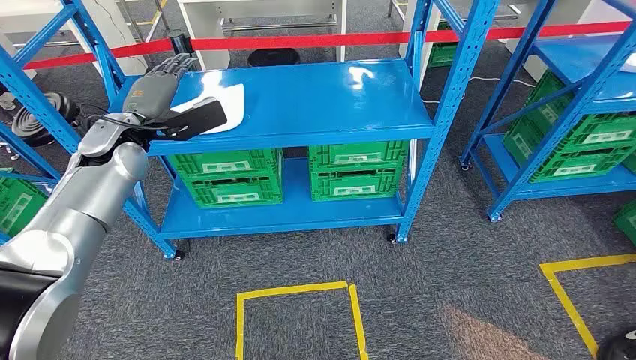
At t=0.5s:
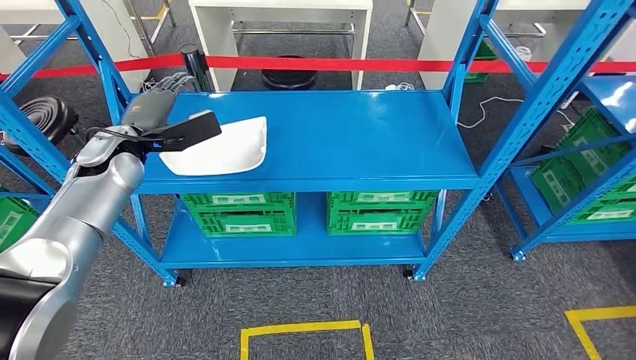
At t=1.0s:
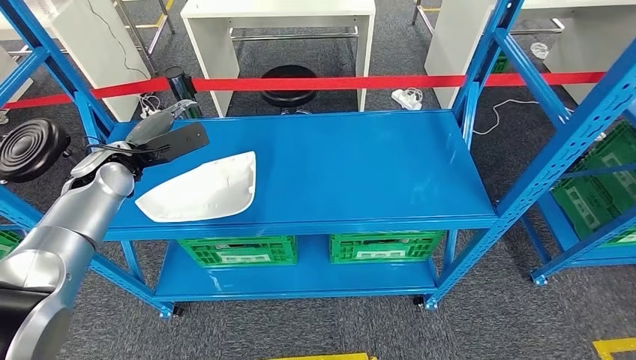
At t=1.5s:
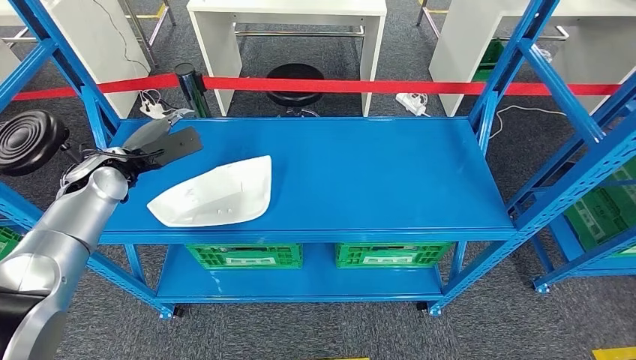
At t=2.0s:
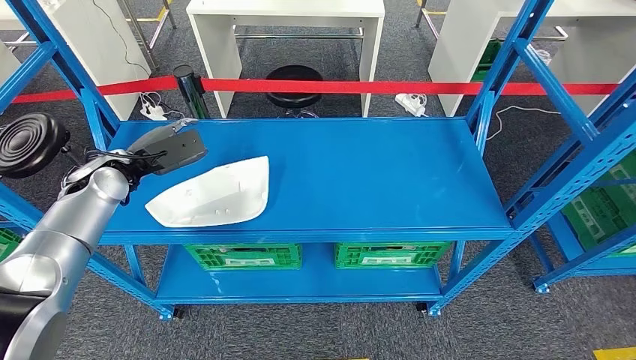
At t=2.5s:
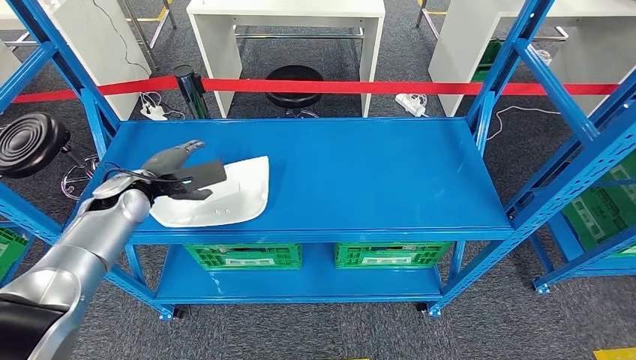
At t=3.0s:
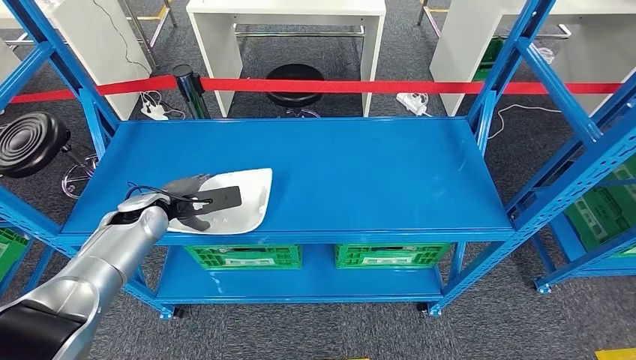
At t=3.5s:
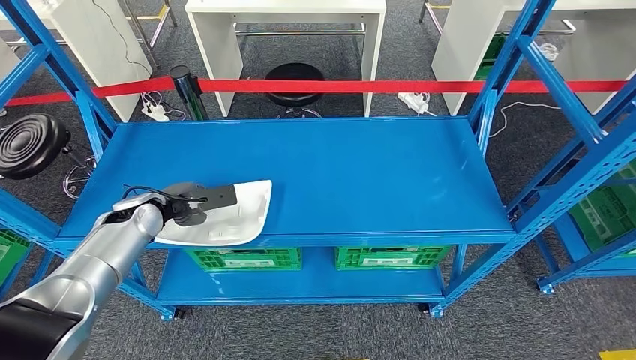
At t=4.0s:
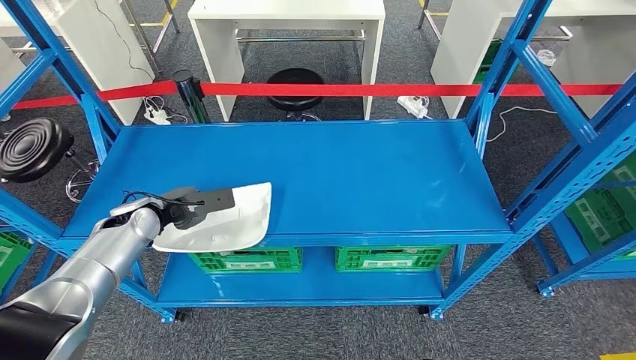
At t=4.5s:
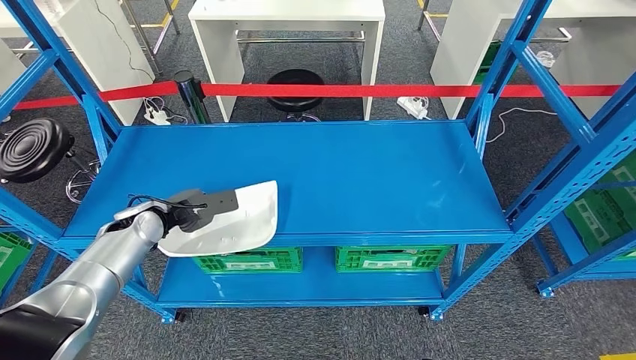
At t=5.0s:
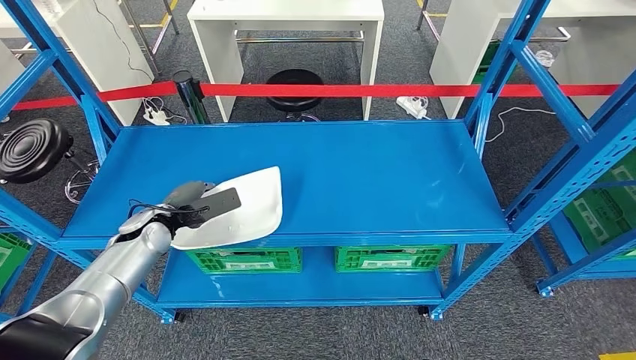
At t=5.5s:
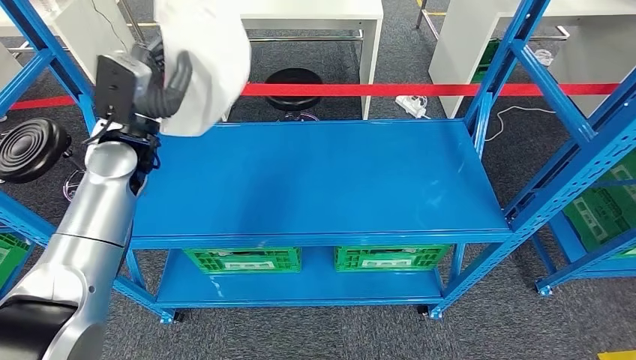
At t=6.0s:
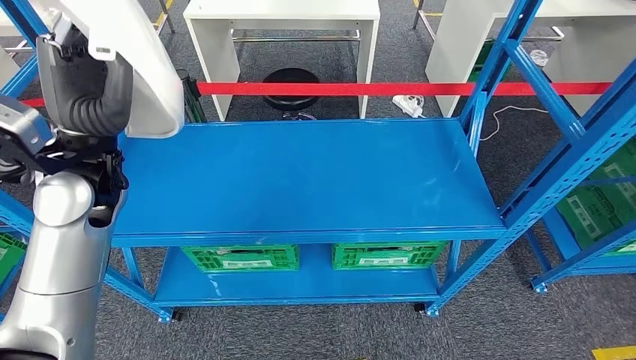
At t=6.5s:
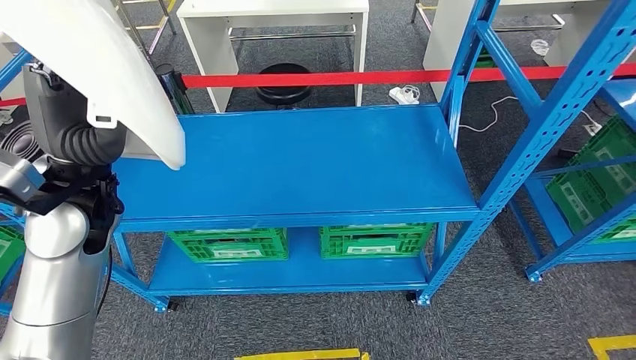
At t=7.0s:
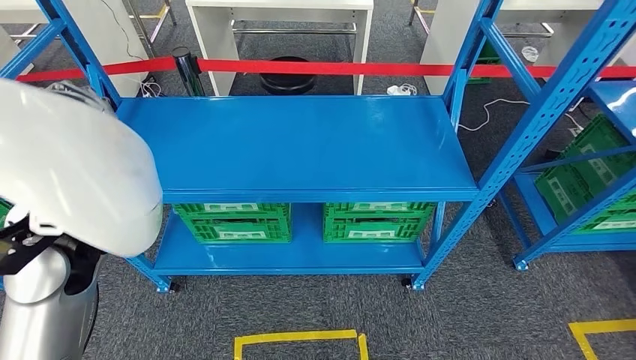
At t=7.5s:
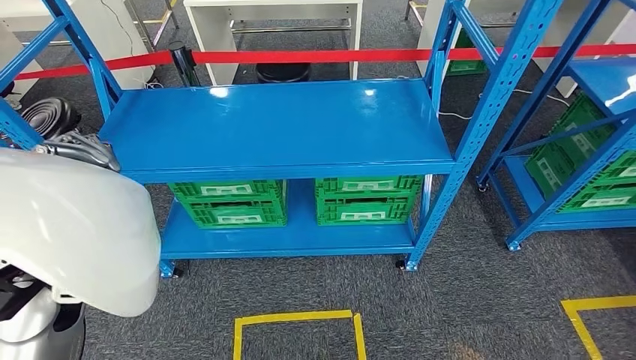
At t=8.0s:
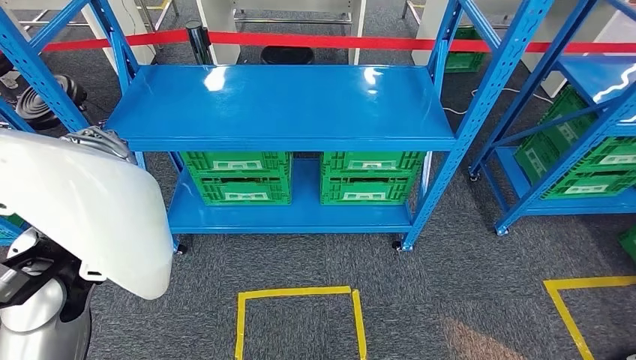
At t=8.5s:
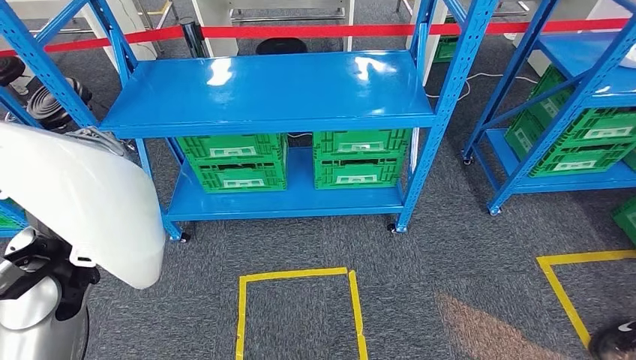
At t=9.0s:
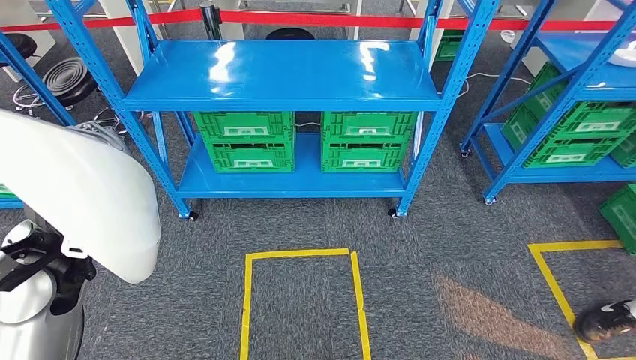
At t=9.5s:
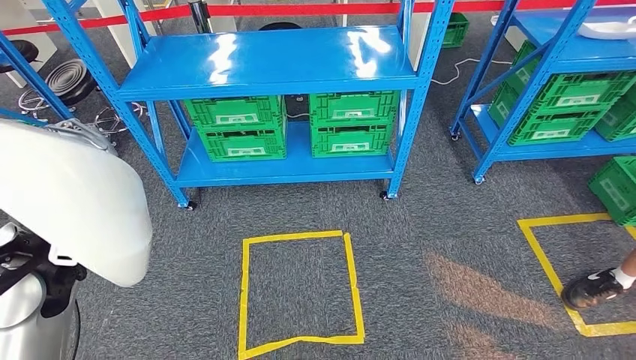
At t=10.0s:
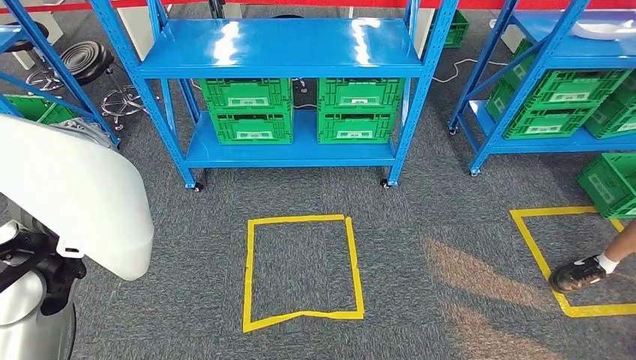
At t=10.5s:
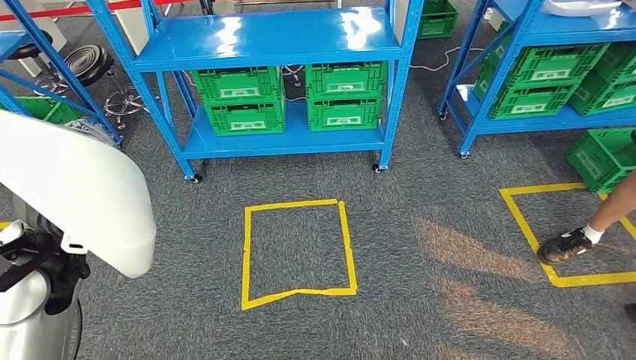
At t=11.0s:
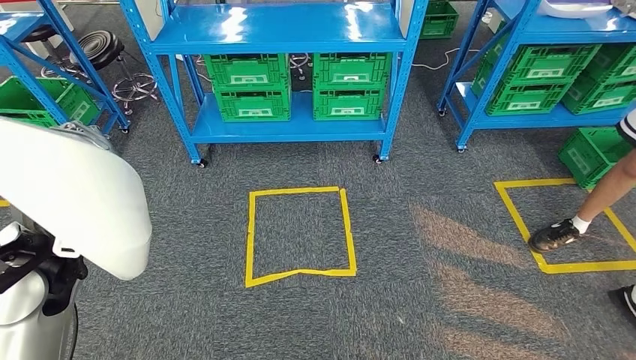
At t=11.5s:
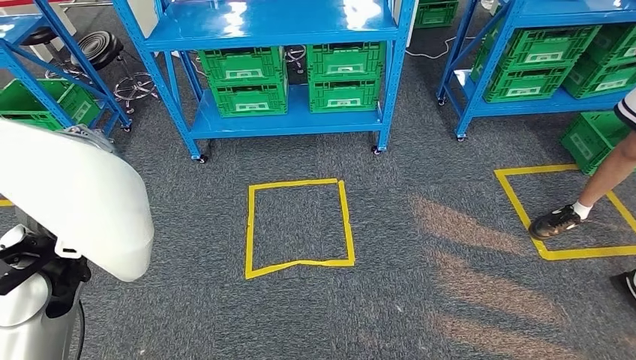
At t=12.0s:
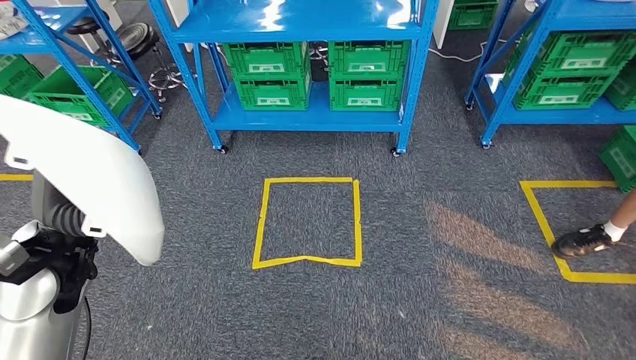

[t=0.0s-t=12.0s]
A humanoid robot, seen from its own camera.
Step, t=0.0s to t=5.0s: Pick up the small component from the shelf.

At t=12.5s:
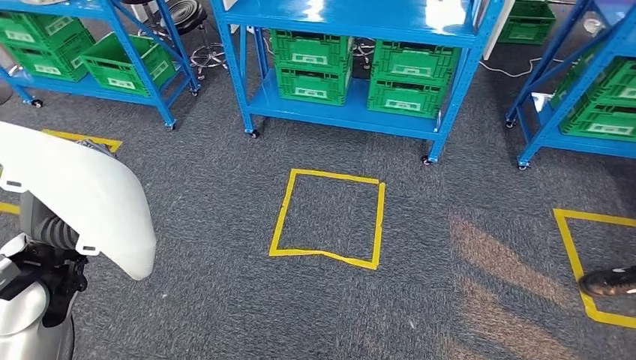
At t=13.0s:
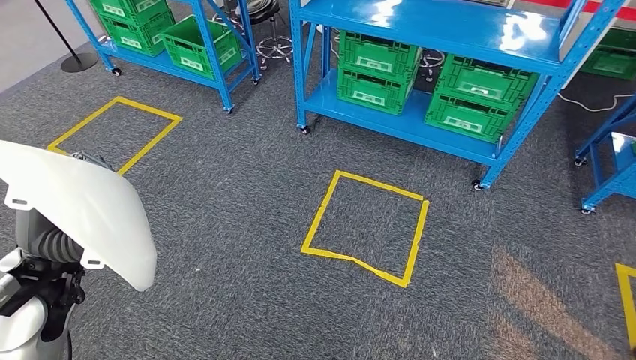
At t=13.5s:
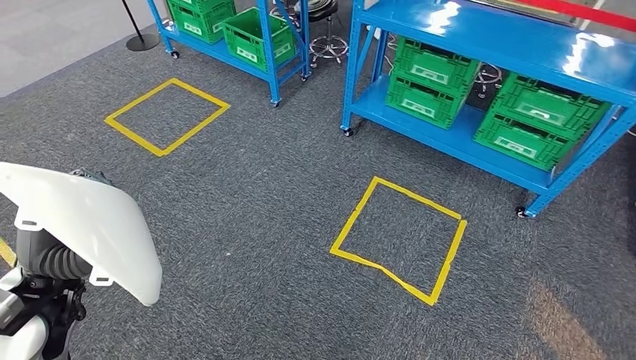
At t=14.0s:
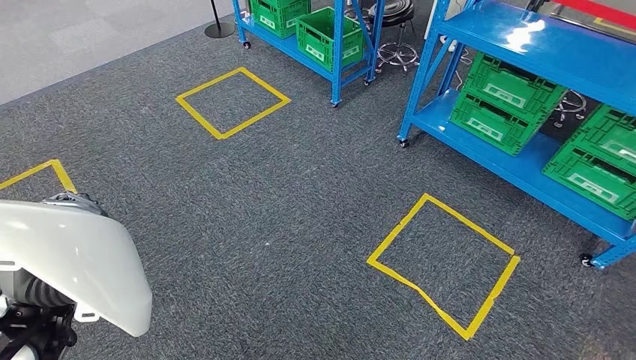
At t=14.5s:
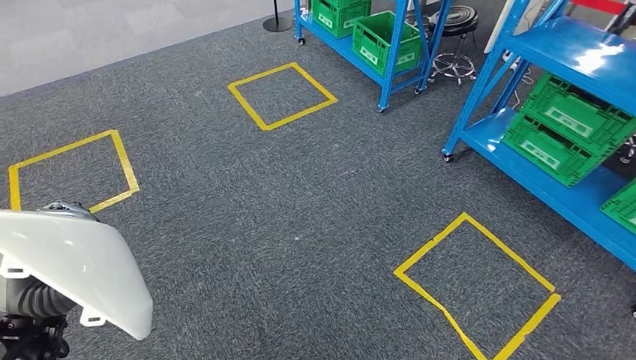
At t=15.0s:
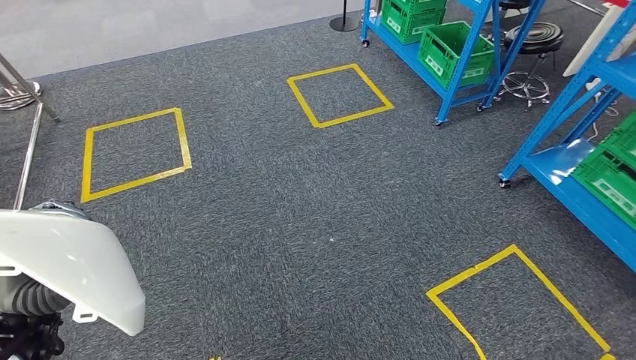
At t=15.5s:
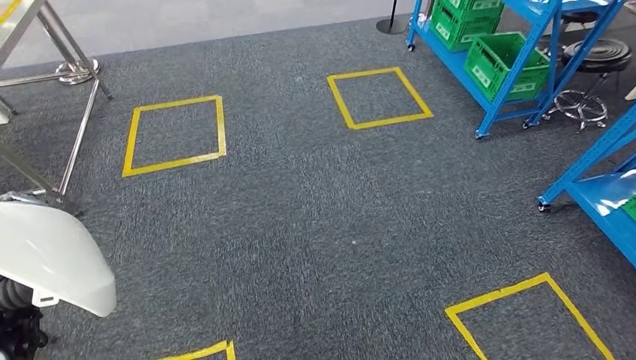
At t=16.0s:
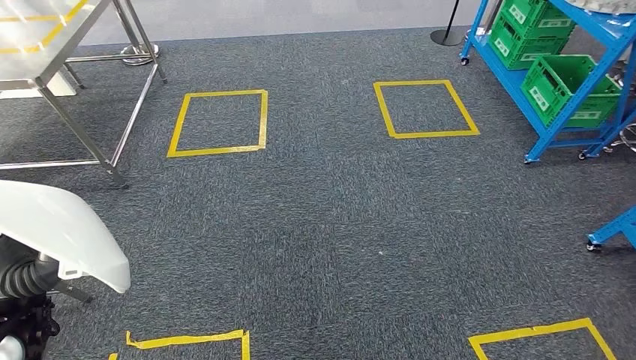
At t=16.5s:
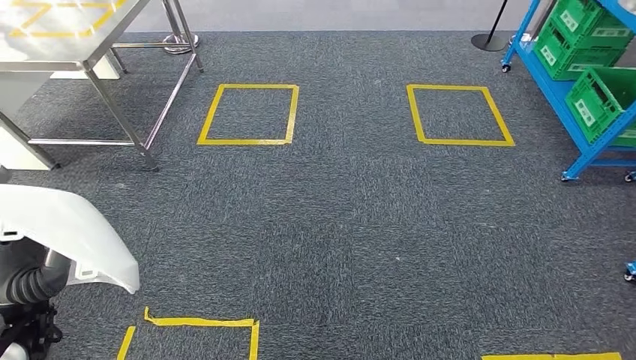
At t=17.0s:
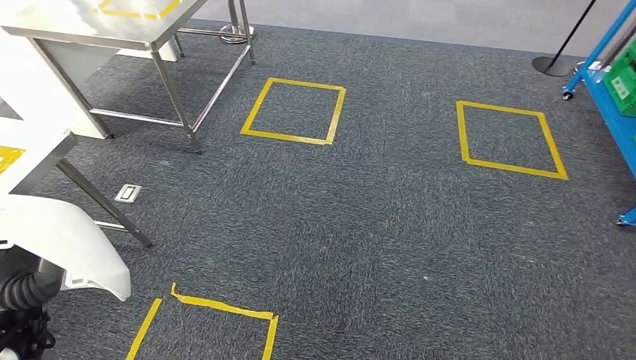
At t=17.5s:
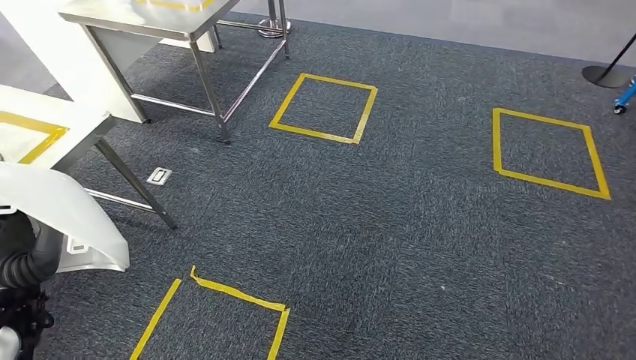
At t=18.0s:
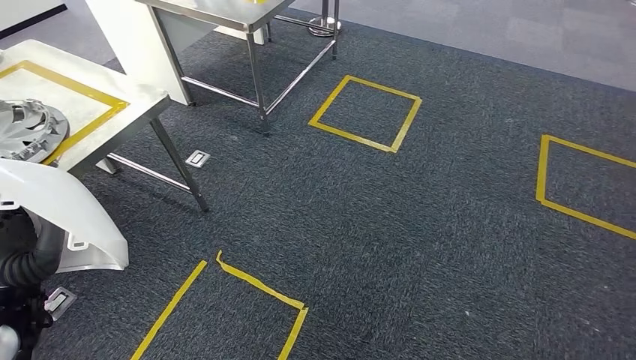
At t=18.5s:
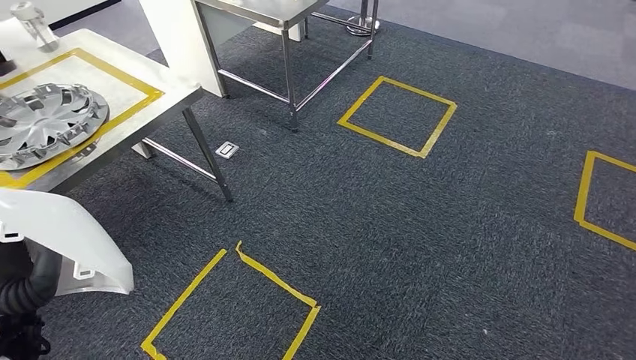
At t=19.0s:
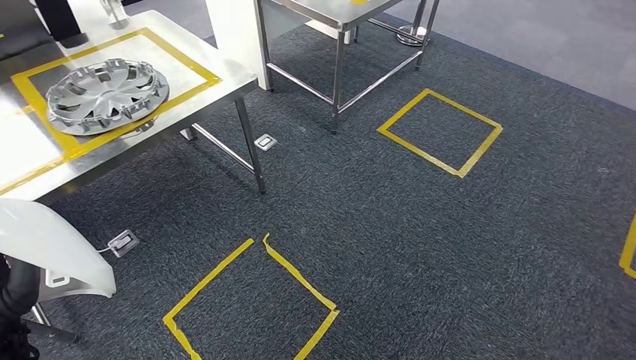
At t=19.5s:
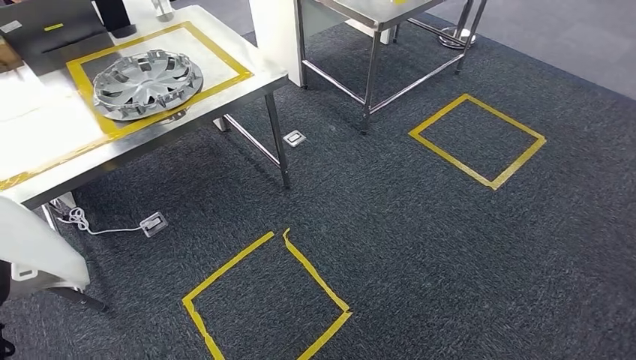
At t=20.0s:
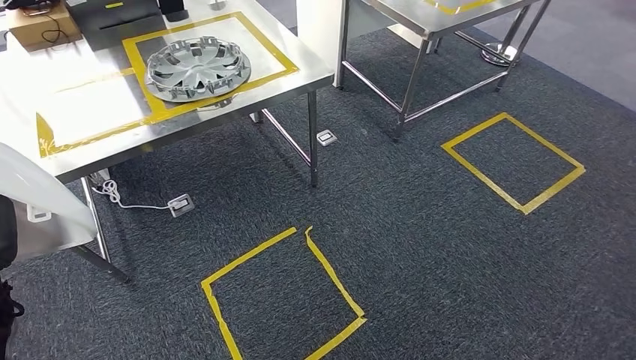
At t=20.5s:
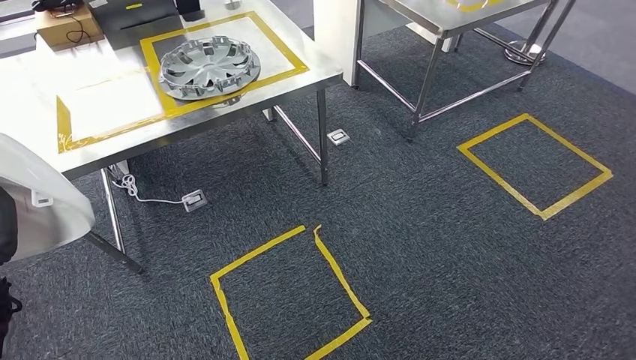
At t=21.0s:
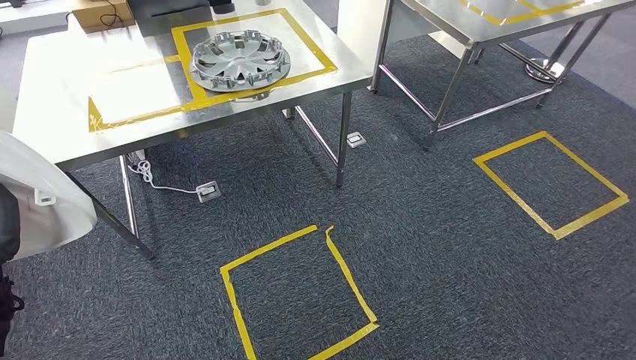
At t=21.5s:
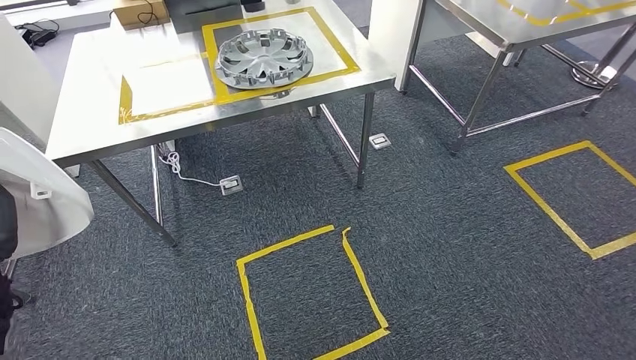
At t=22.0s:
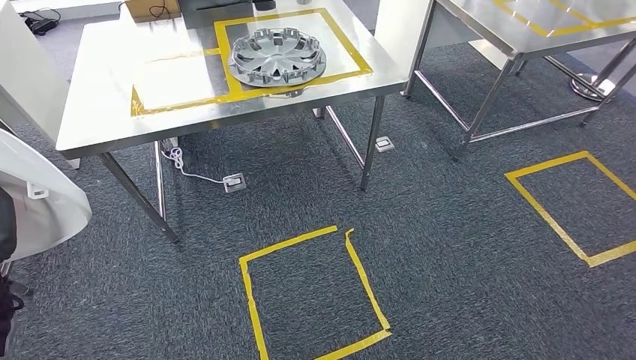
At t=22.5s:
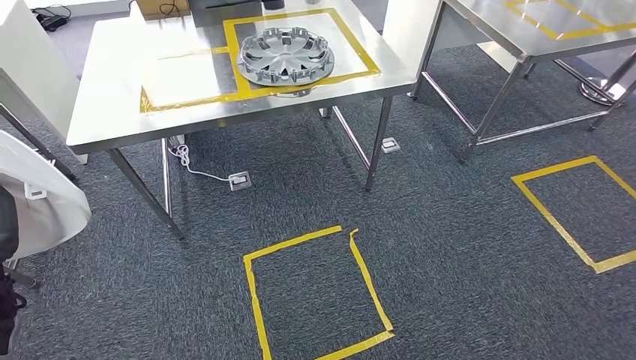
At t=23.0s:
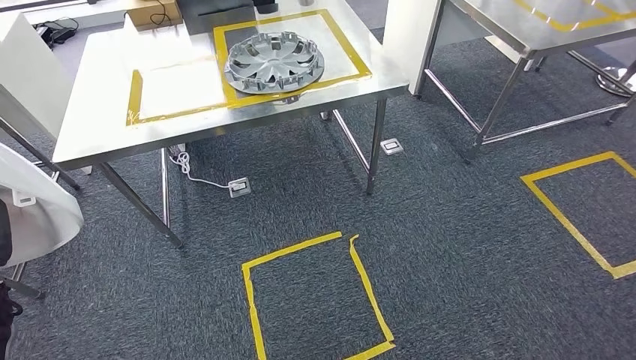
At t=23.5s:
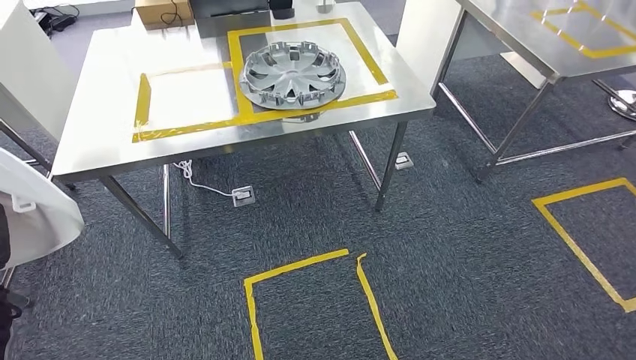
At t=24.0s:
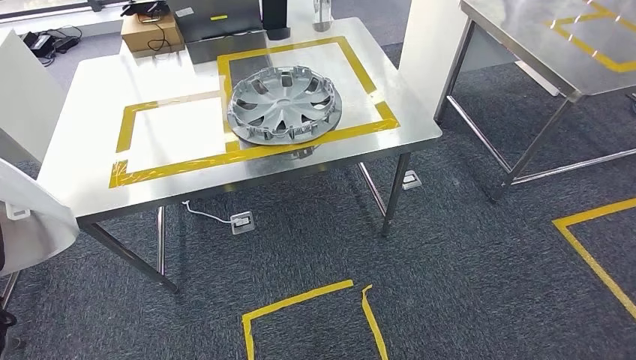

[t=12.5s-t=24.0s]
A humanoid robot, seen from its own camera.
Step, t=12.5s to t=22.5s: Move the small component to the workbench.
